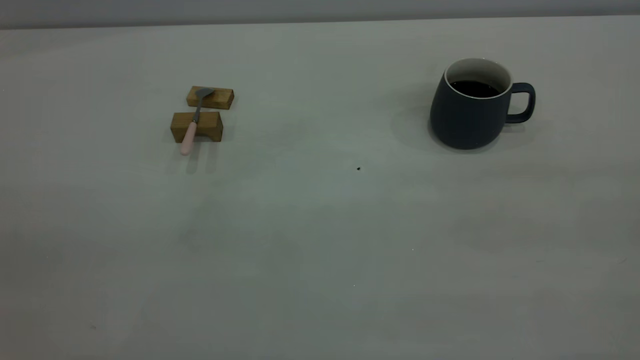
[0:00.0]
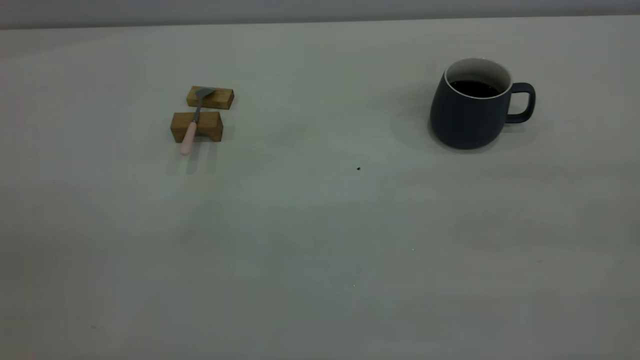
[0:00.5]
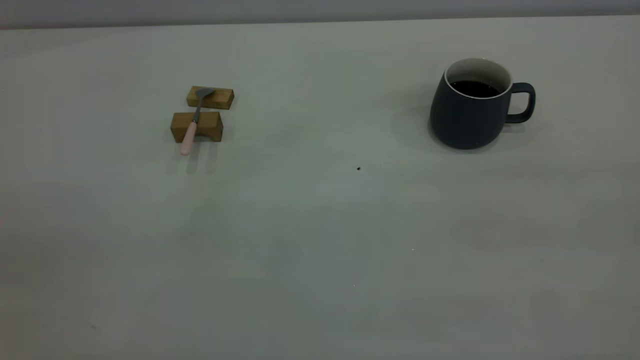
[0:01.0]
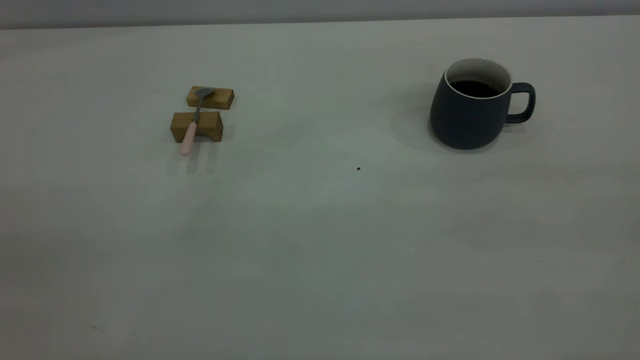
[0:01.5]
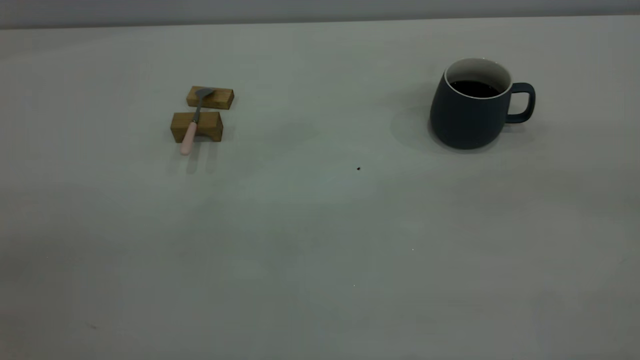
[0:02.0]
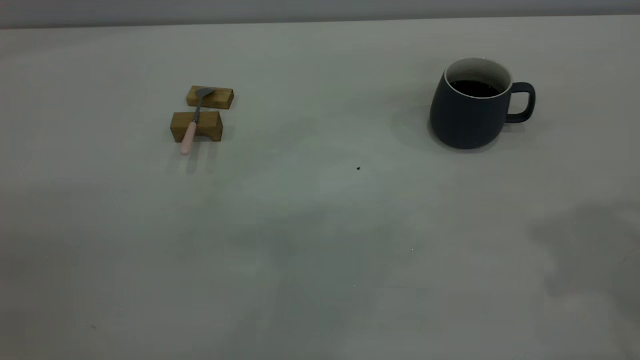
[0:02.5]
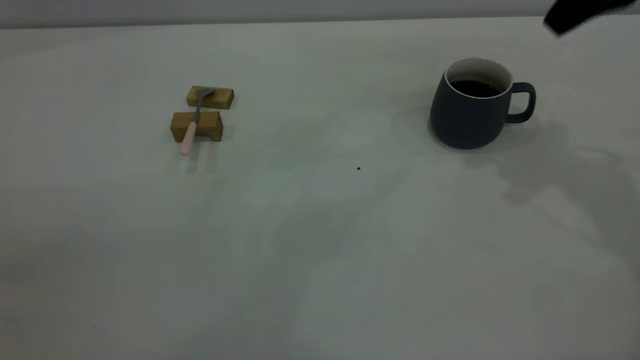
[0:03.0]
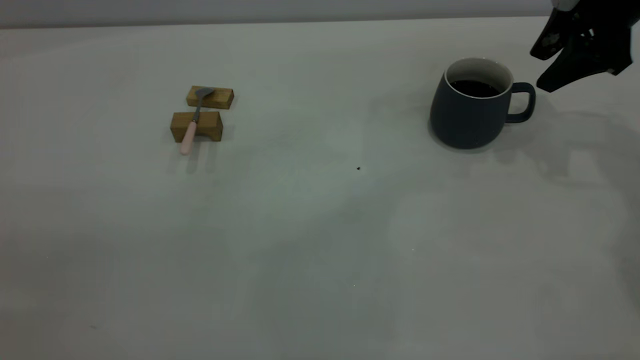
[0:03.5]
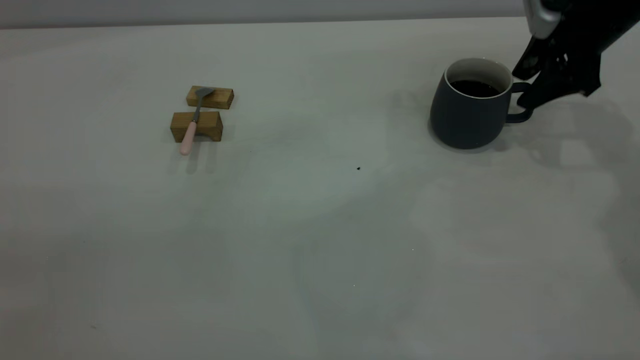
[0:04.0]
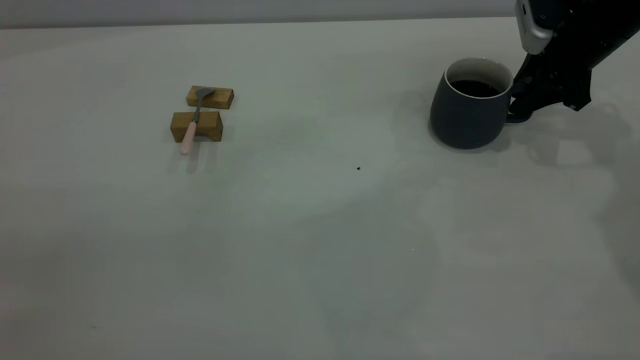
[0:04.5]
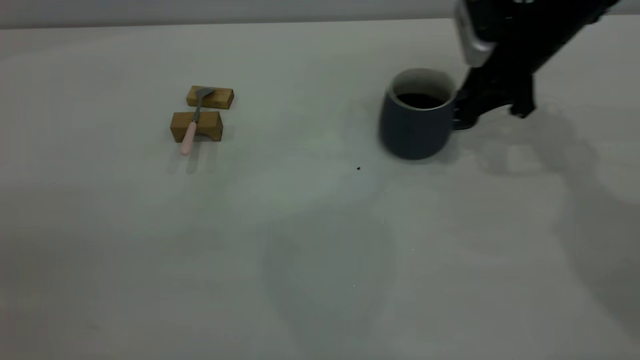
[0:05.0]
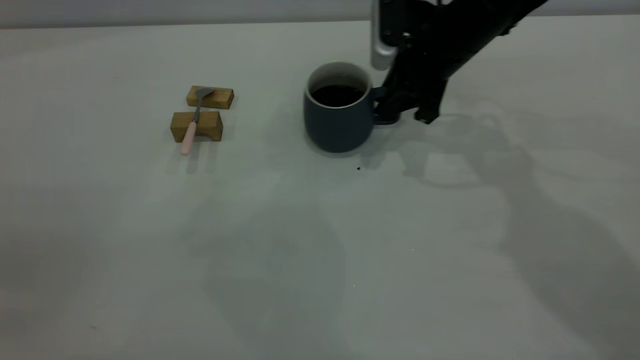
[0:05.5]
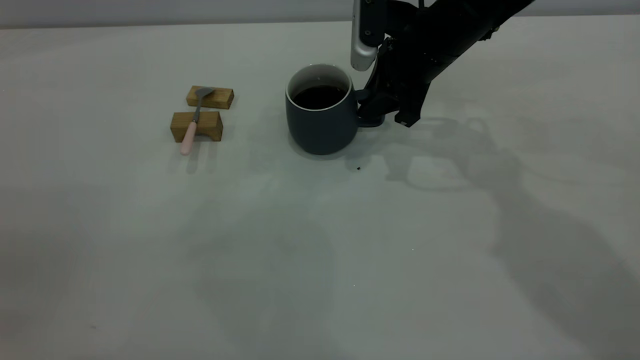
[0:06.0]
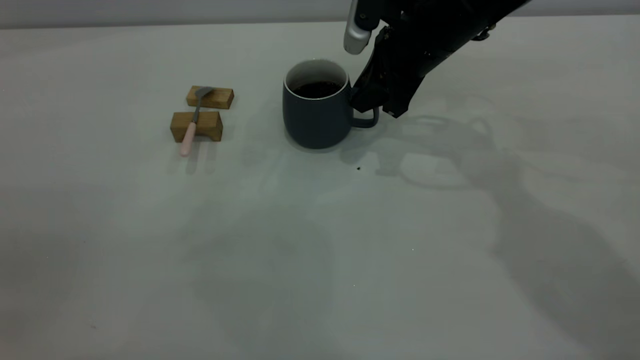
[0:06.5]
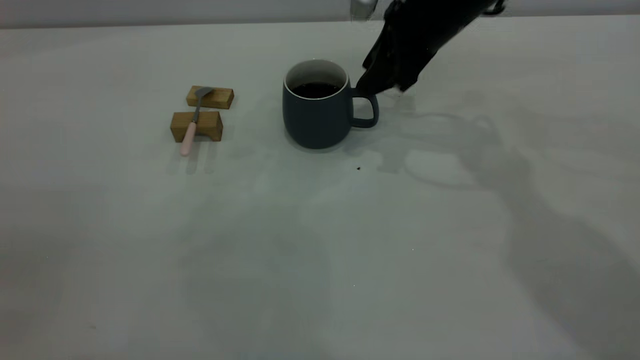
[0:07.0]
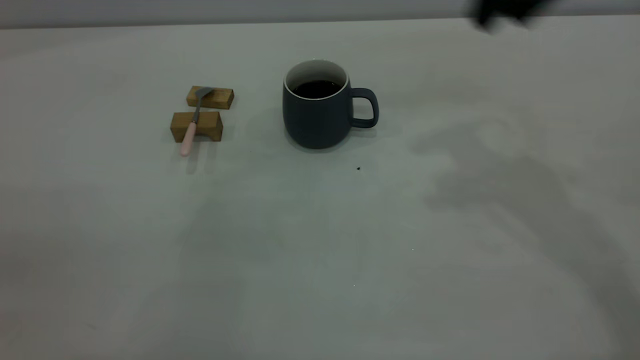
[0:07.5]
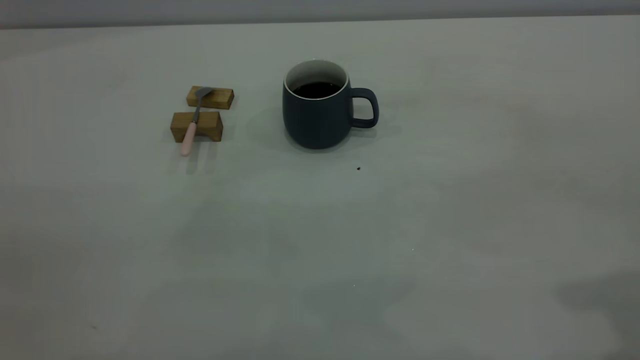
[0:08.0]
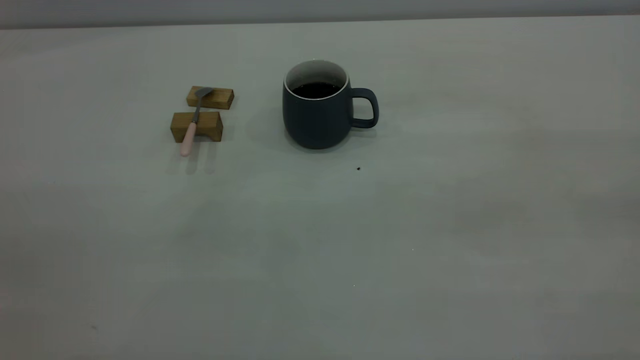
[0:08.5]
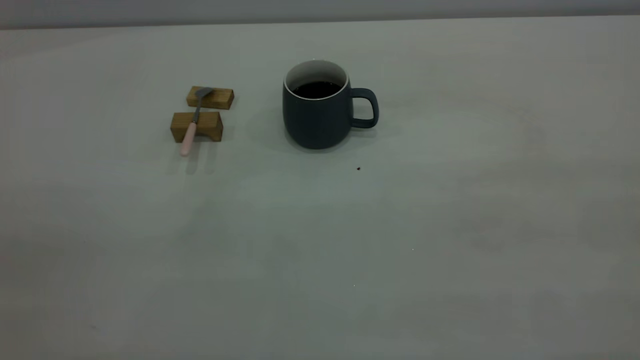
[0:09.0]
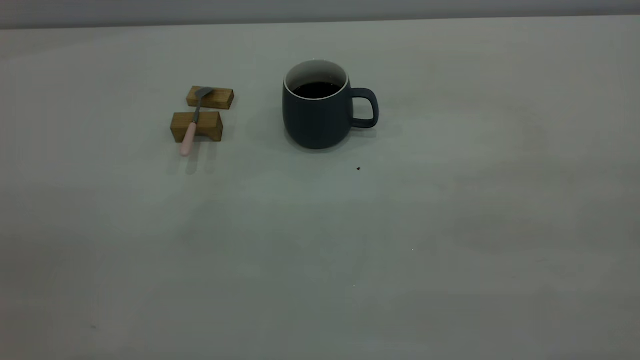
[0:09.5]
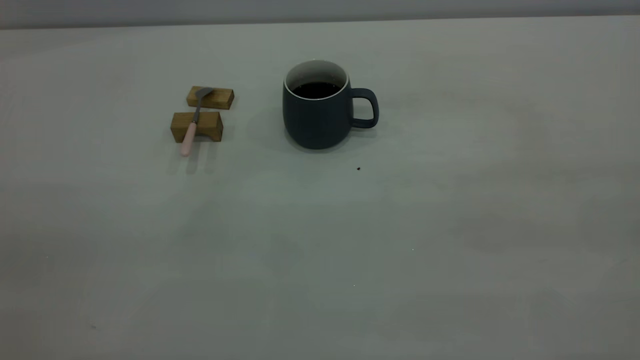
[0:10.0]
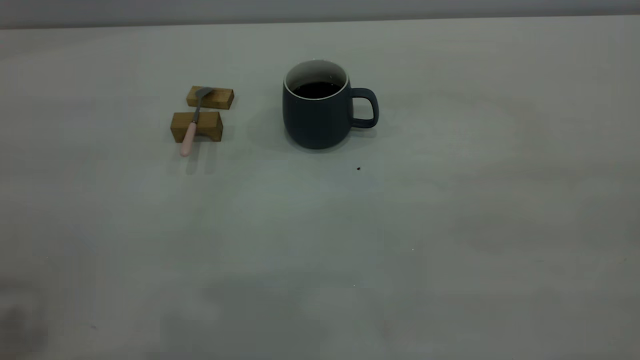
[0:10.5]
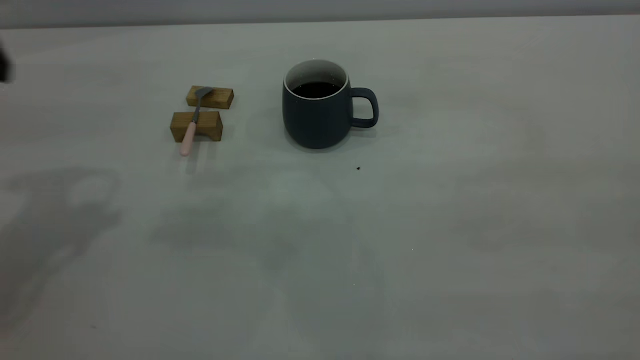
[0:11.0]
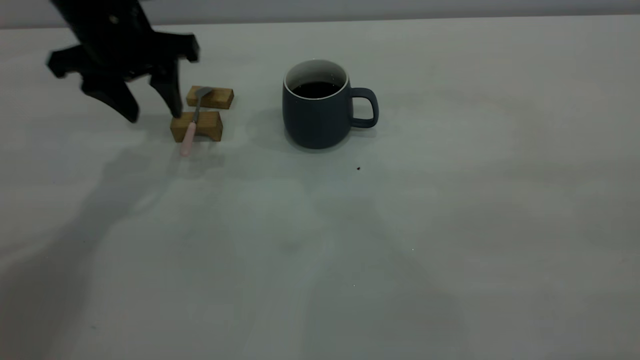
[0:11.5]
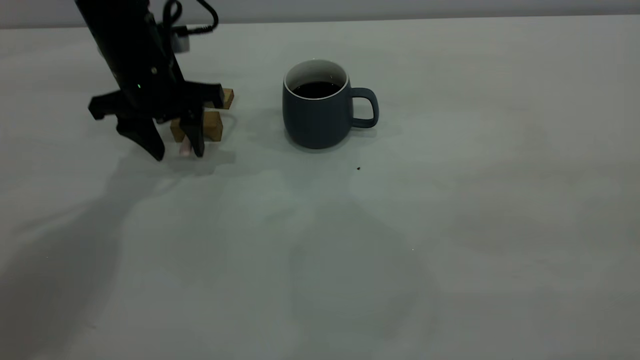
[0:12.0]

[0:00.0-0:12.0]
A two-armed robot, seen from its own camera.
Step, 0:00.0 to 0:07.0: Move the cup with coffee to the center of view.
0:02.0 to 0:04.0: The right gripper moves forward and downward, approximately 50 cm.
0:04.0 to 0:06.0: The right gripper shifts some 20 cm to the left, and closes.
0:06.0 to 0:08.0: The right gripper heads backward, upward and to the right, covering about 40 cm, and opens.
0:10.0 to 0:12.0: The left gripper goes some 50 cm forward and downward.

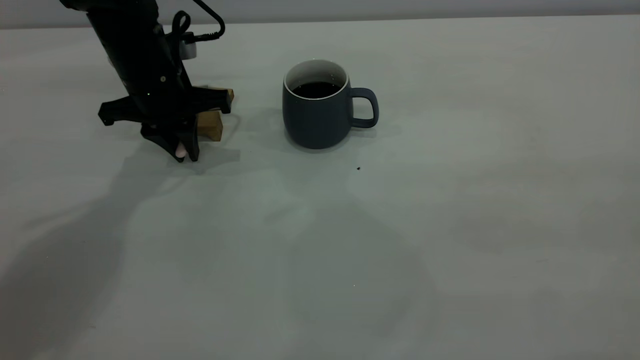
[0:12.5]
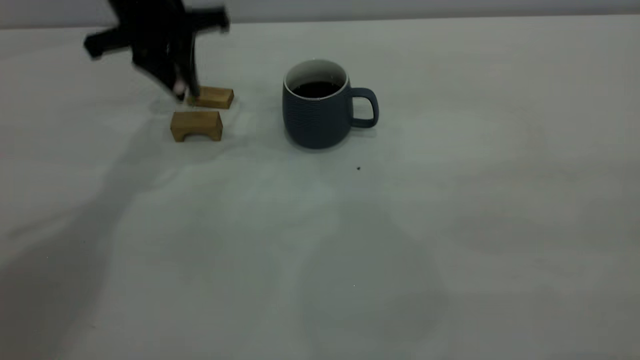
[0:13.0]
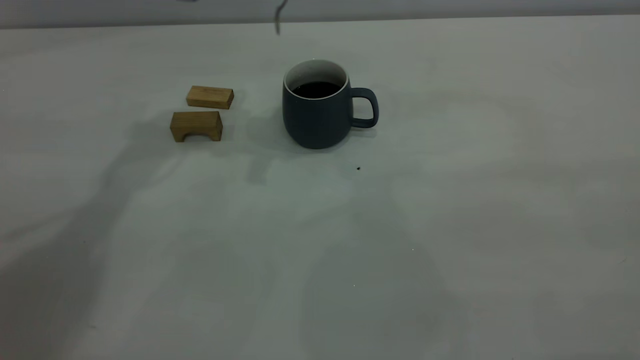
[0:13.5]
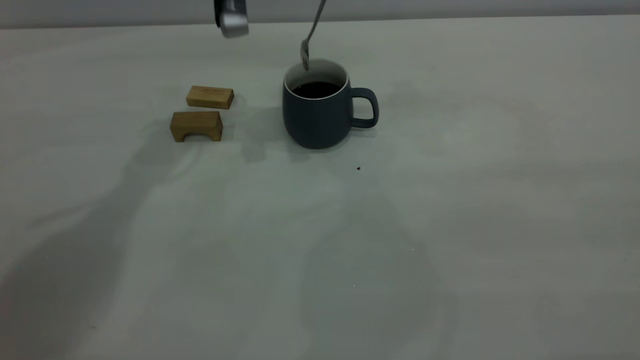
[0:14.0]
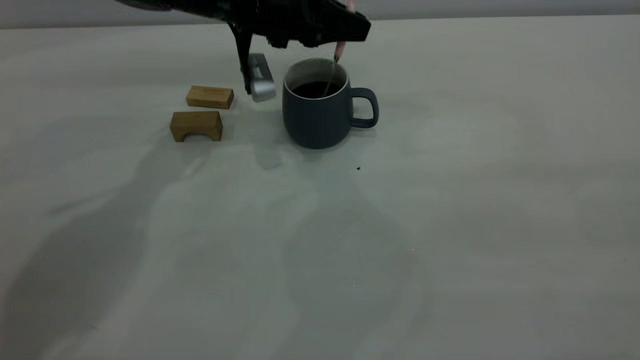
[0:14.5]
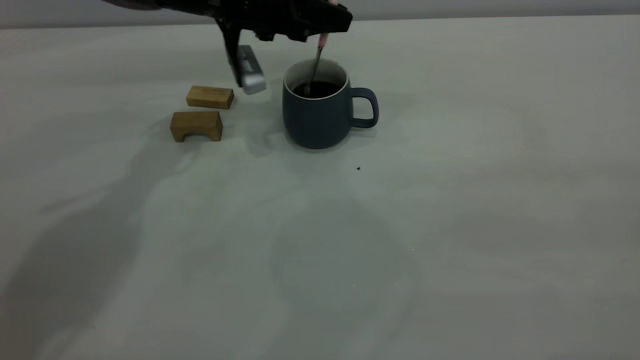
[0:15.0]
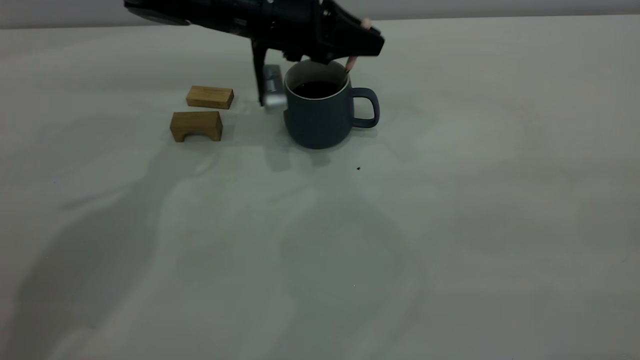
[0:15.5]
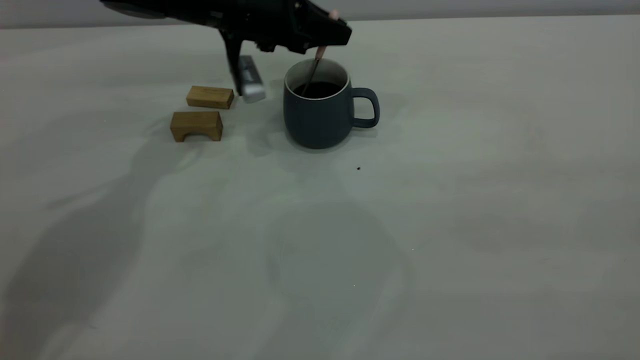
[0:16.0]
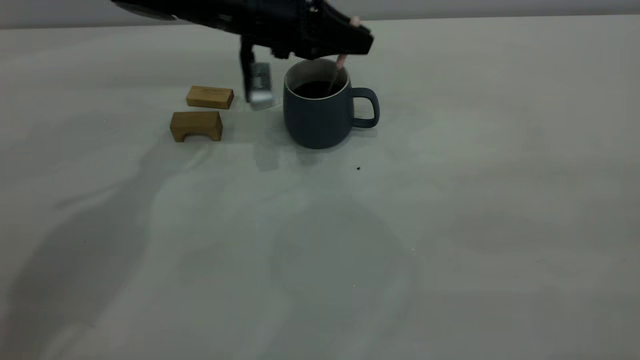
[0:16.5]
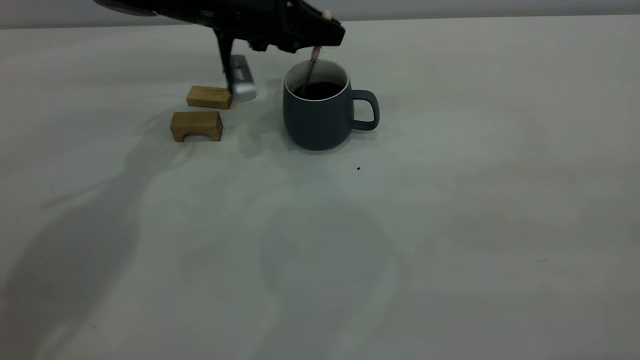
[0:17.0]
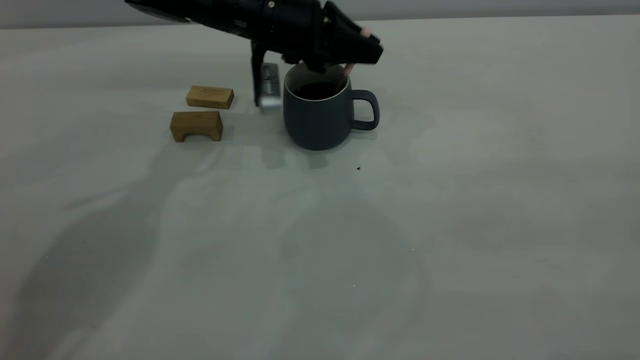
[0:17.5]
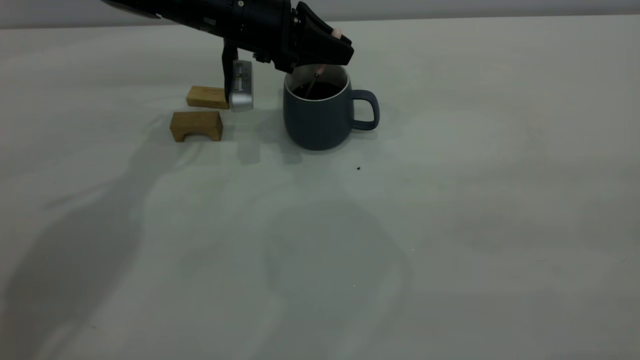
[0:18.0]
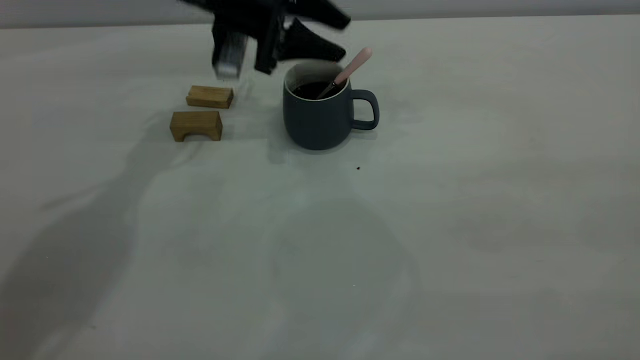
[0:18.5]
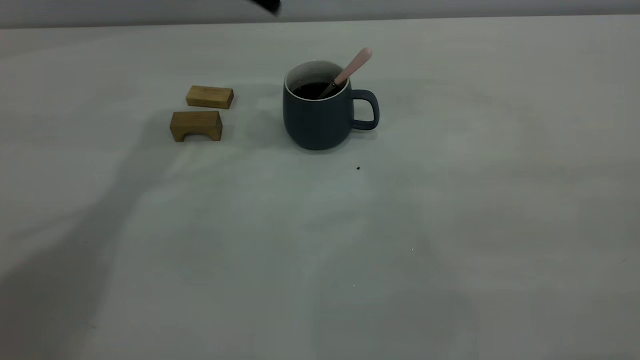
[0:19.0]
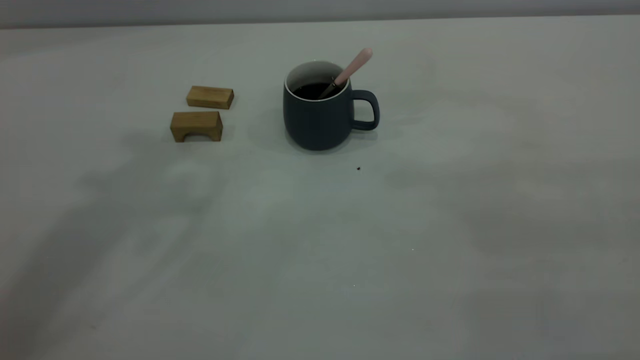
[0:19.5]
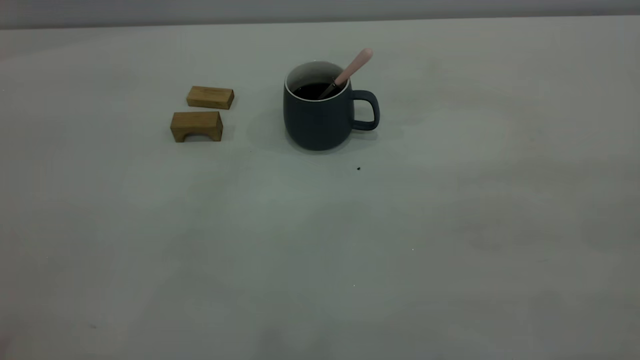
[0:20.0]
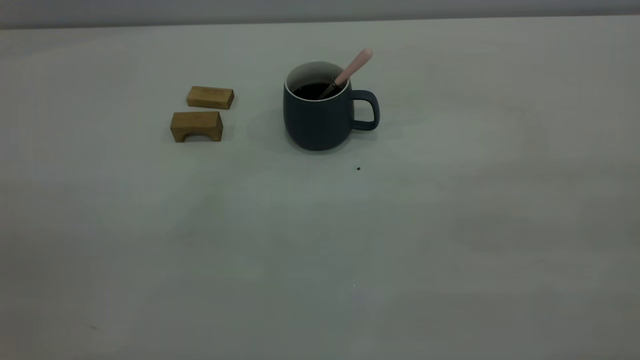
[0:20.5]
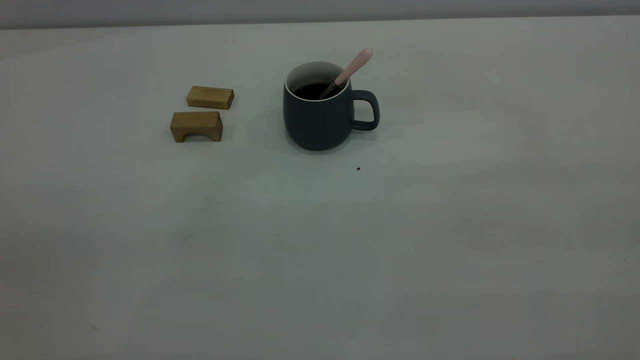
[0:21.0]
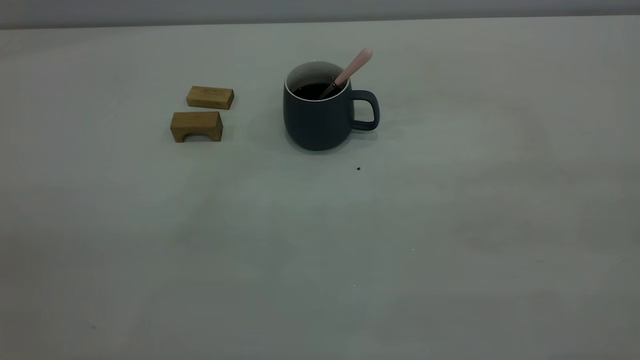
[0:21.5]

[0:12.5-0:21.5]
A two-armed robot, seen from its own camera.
Step, 0:13.0 to 0:18.5: Stir the coffee in the cup.
0:12.5 to 0:14.5: The left gripper heads to the right, covering some 10 cm, and goes upward and returns, about 15 cm each way.
0:14.5 to 0:17.0: There are only small adjustments of the grippers.
0:17.0 to 0:19.5: The left gripper moves upward and backward, roughly 40 cm, and opens its fingers.
